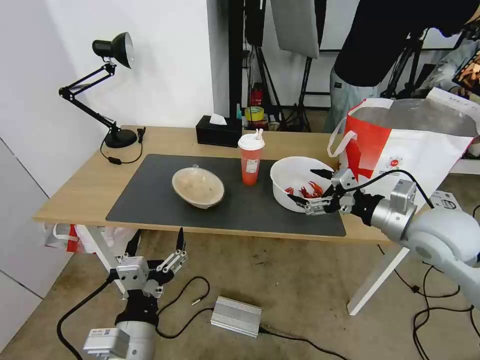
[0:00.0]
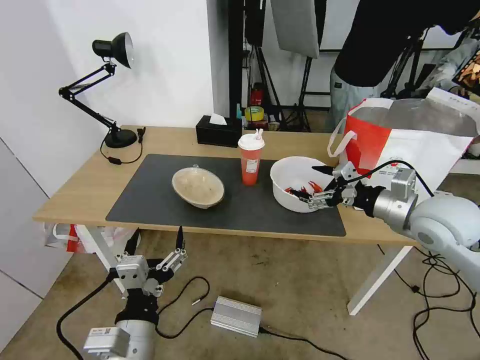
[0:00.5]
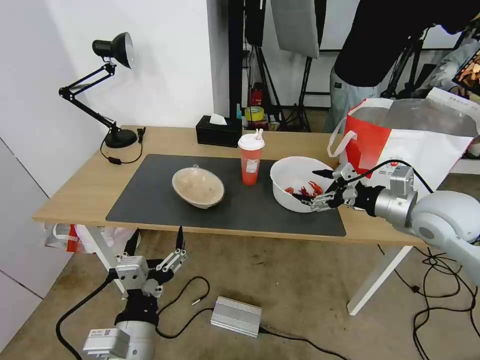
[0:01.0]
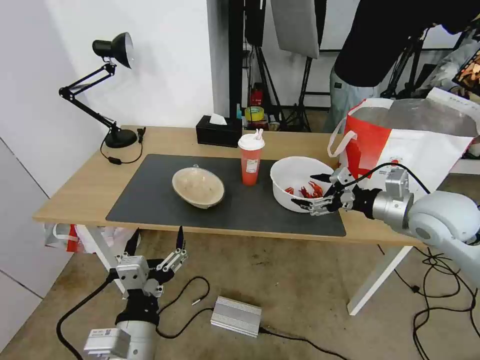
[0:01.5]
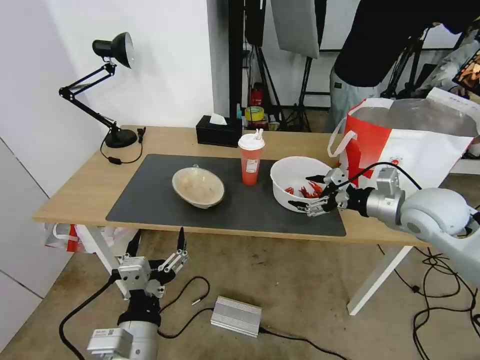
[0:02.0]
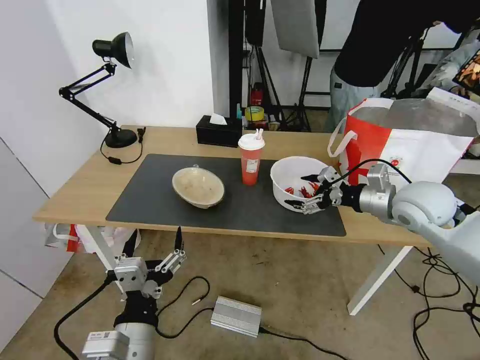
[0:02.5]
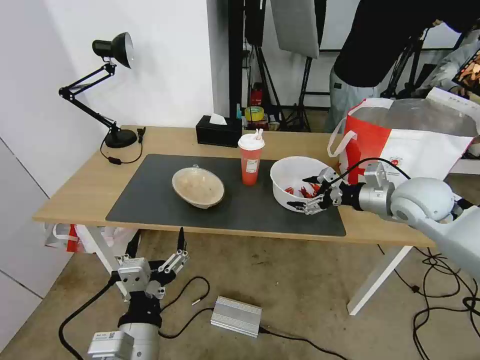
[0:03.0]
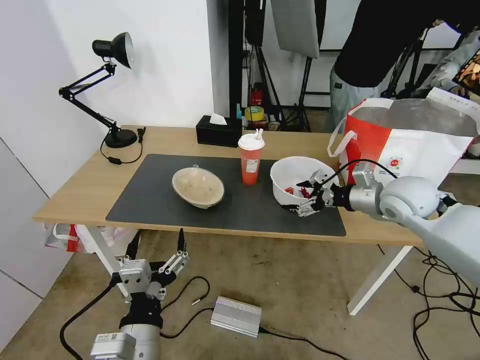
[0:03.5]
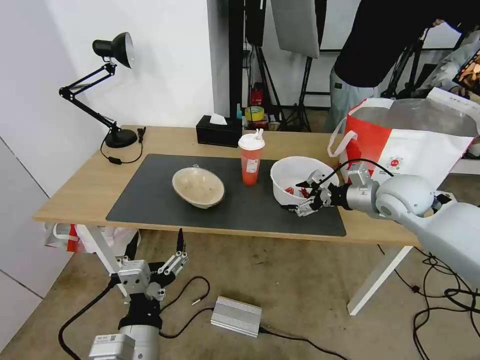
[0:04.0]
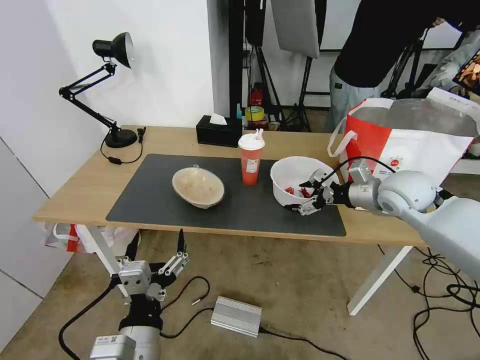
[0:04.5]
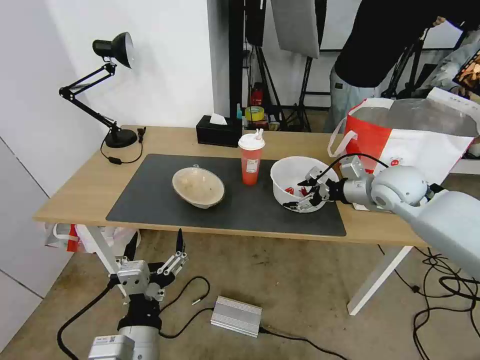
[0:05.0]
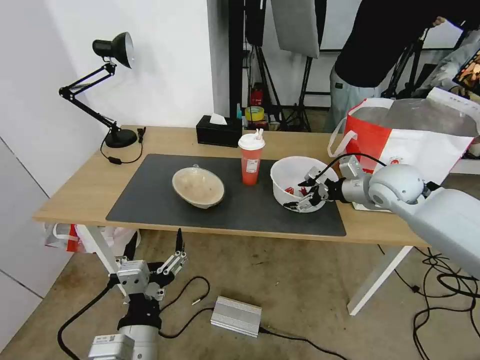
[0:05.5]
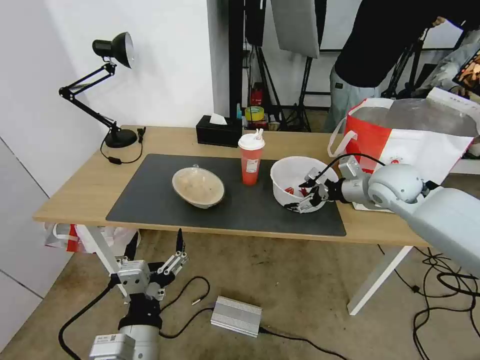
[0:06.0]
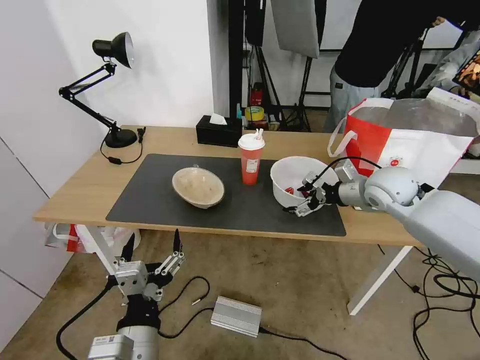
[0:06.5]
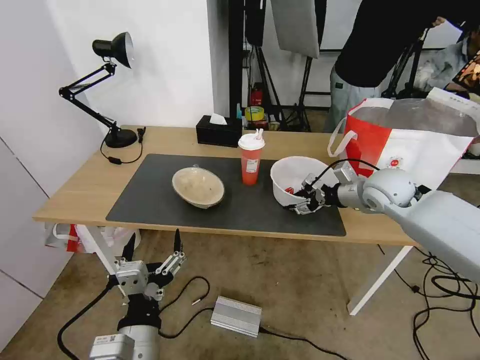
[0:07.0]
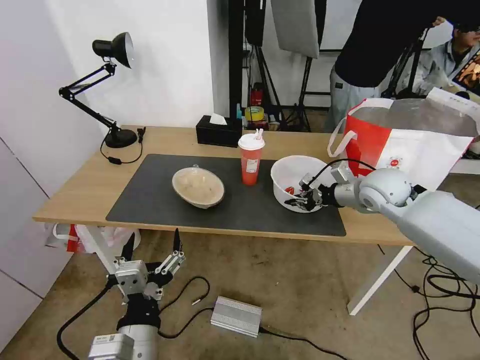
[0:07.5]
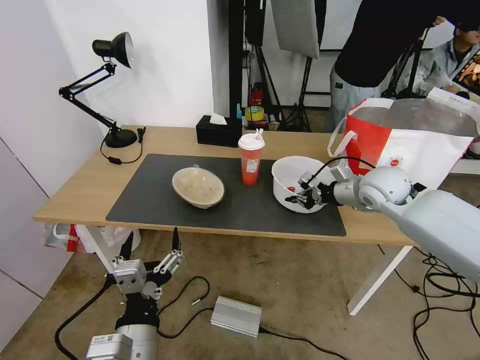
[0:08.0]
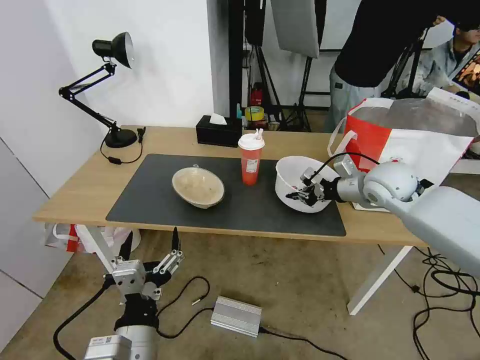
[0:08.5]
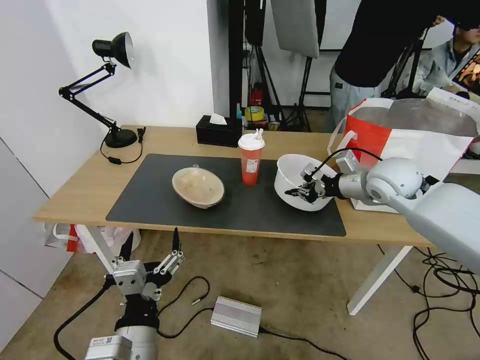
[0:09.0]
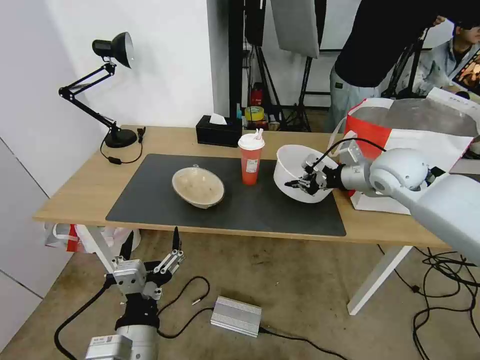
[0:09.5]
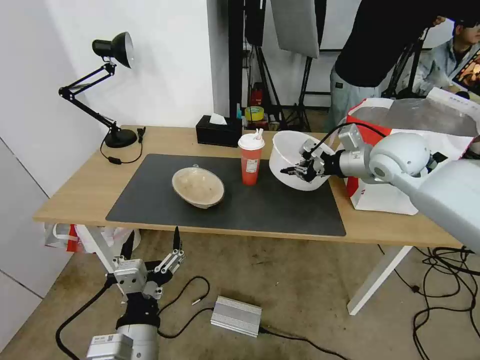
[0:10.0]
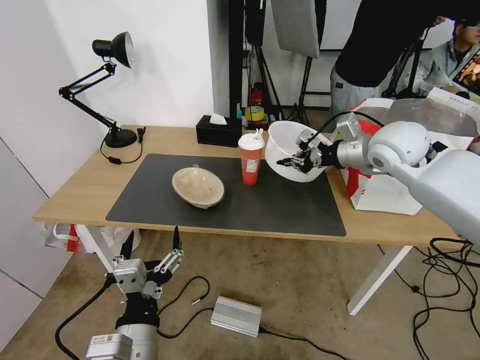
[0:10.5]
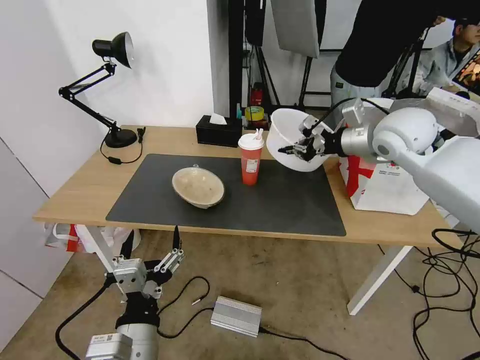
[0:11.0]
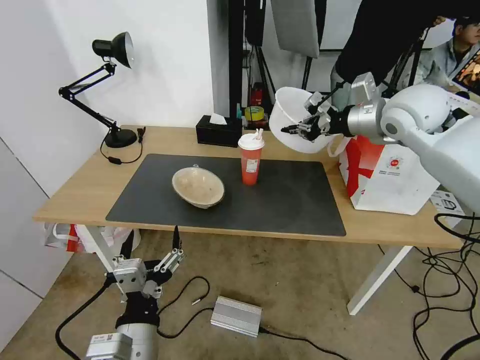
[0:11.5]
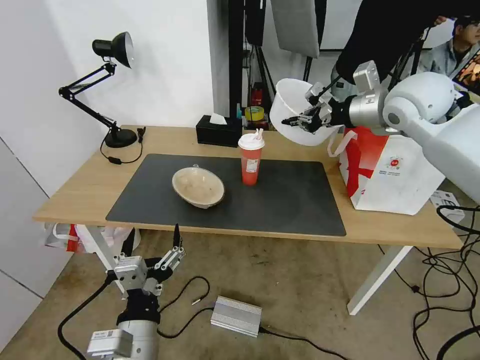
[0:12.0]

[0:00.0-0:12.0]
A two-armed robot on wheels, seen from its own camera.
Task of the whole recording: Pick up the trash from the table and place it into the takeout bag.
0.0 to 2.0 s: The right gripper changes place by roughly 5 cm.
2.0 to 4.0 s: The right gripper shifts some 5 cm forward.
4.0 to 6.0 s: The grippers stay close to where they were, moving slightly.
6.0 to 8.0 s: The right gripper closes.
8.0 to 10.0 s: The right gripper heads upward, covering approximately 10 cm.
10.0 to 12.0 s: The right gripper shifts about 10 cm upward.

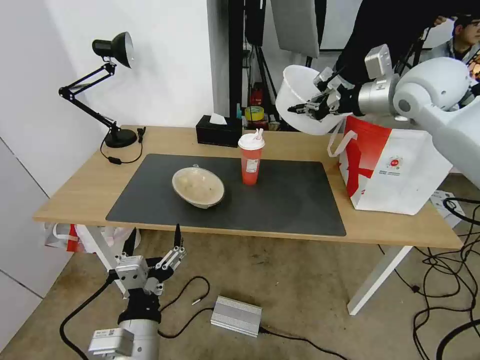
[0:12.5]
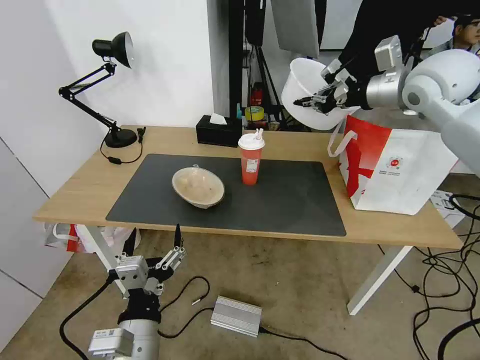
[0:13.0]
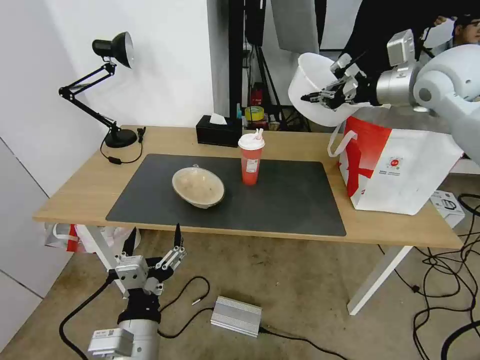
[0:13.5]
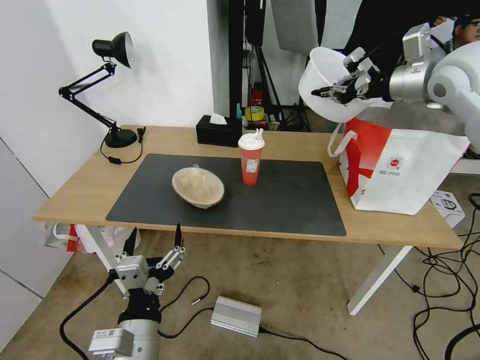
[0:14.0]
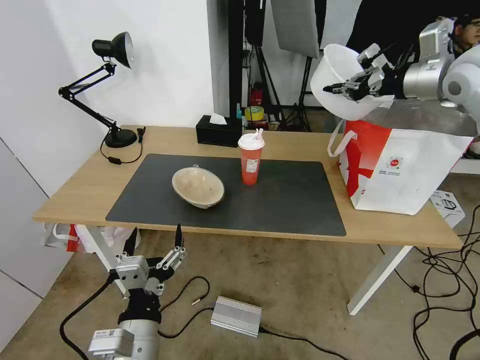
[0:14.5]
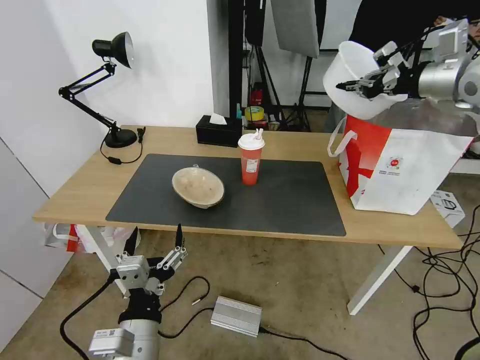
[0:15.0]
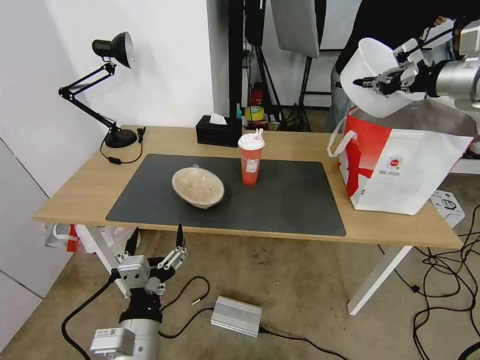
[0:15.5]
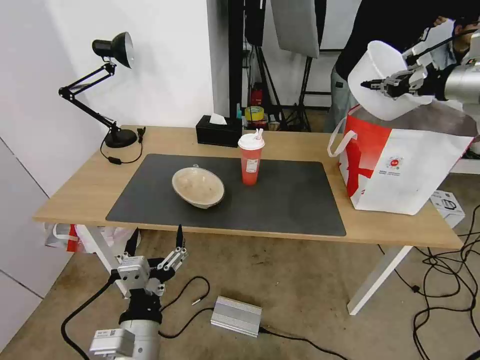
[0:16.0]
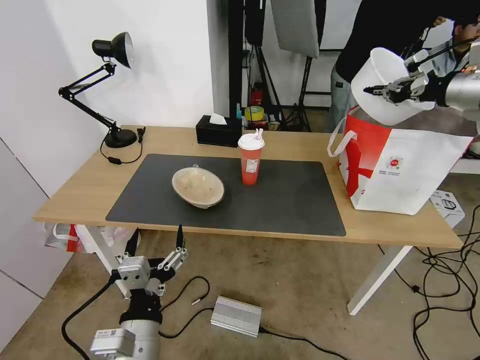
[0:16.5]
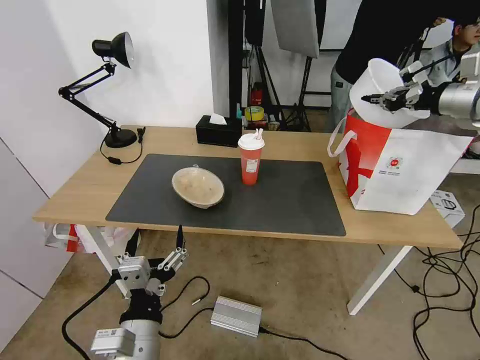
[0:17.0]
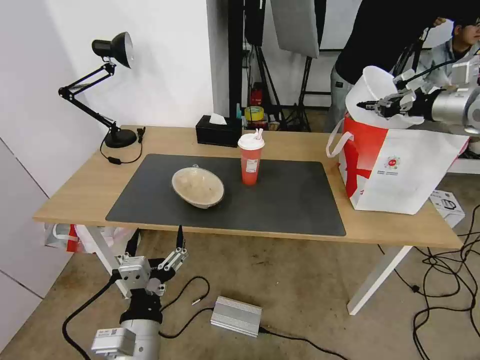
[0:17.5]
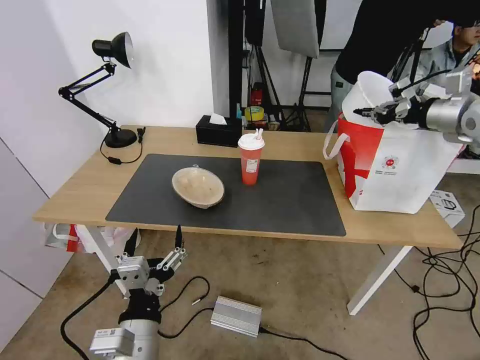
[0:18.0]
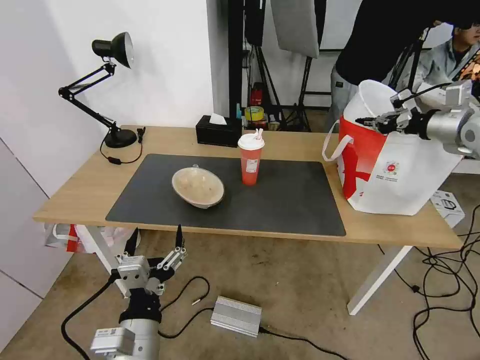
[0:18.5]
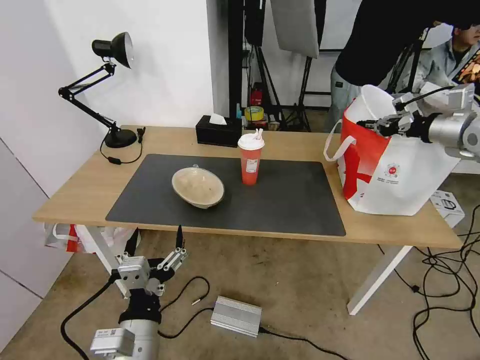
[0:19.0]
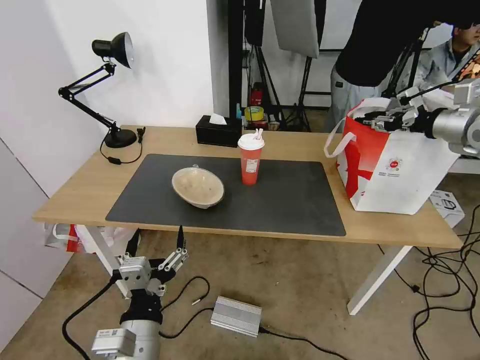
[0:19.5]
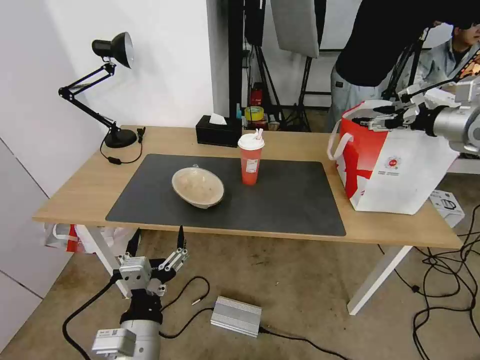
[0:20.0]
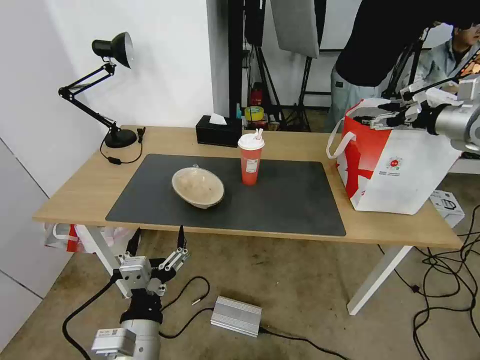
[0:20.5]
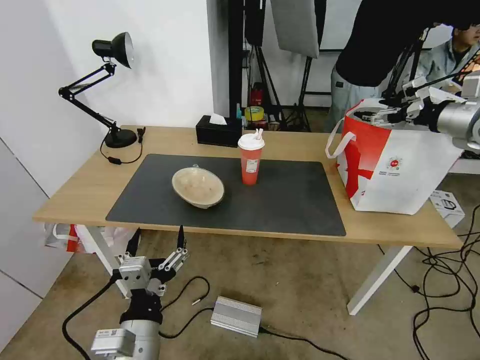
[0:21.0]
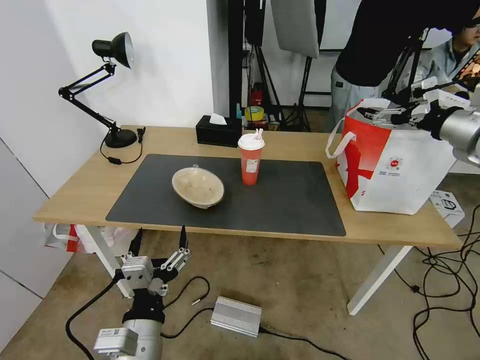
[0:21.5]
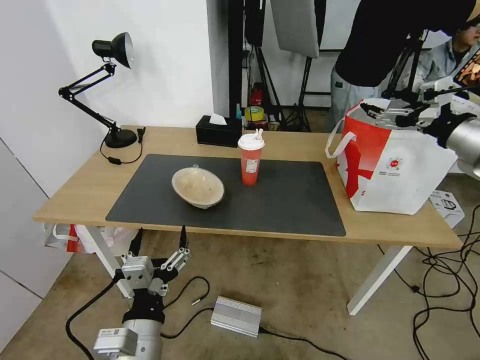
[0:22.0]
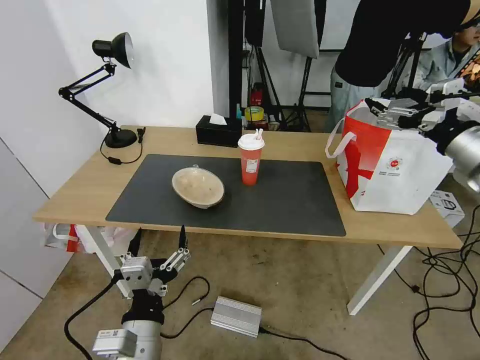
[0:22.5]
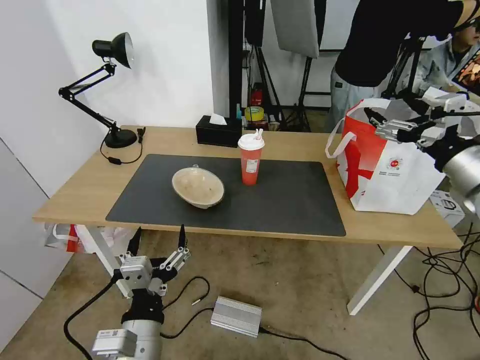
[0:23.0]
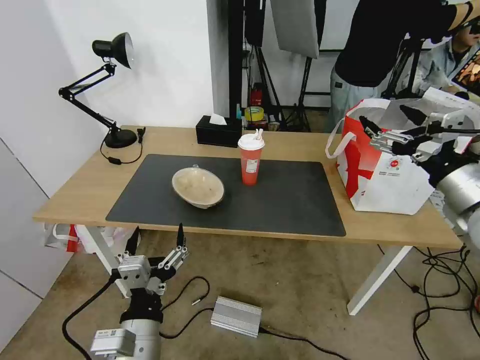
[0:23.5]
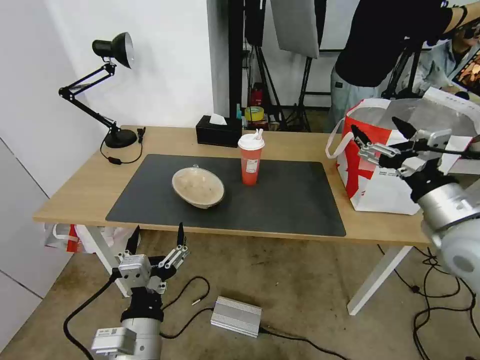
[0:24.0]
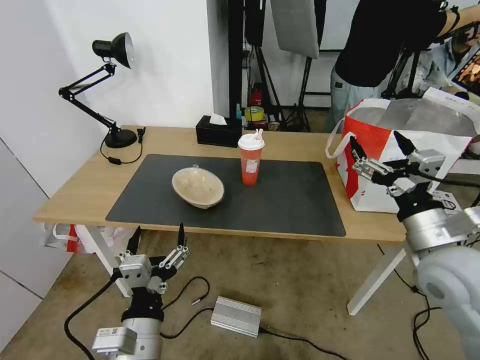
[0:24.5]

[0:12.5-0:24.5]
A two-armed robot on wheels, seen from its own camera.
Task of the whole recording: Pick up the trash from the table and place it into the takeout bag.
12.5 to 14.5 s: The right gripper heads to the right, covering some 5 cm.
14.5 to 16.5 s: The right gripper is displaced to the right by some 10 cm.
16.5 to 18.5 s: The right gripper shifts approximately 5 cm downward.
18.5 to 20.5 s: The right gripper opens.
20.5 to 22.5 s: The right gripper moves backward and to the left, approximately 15 cm.
22.5 to 24.5 s: The right gripper goes roughly 15 cm downward, backward and to the left.

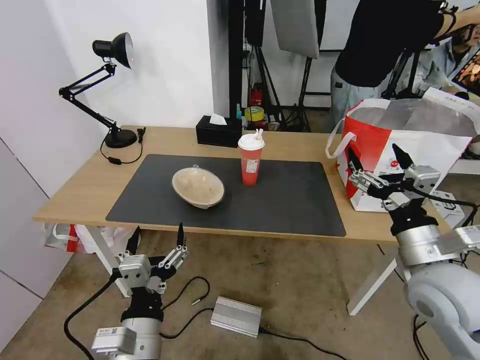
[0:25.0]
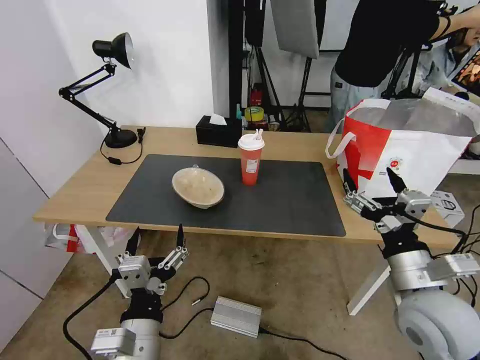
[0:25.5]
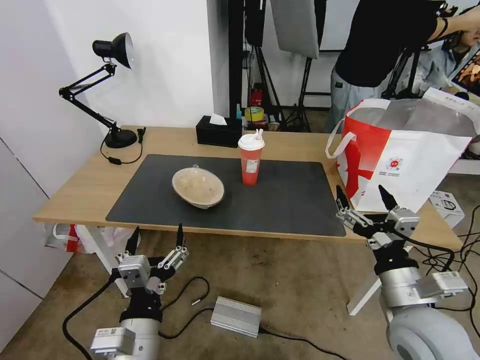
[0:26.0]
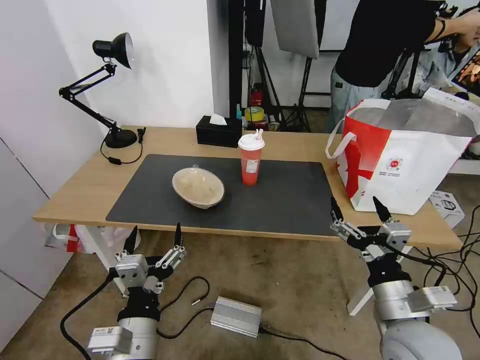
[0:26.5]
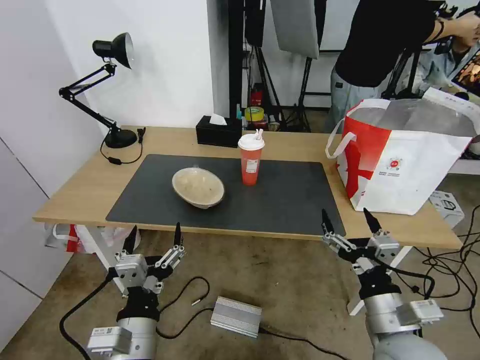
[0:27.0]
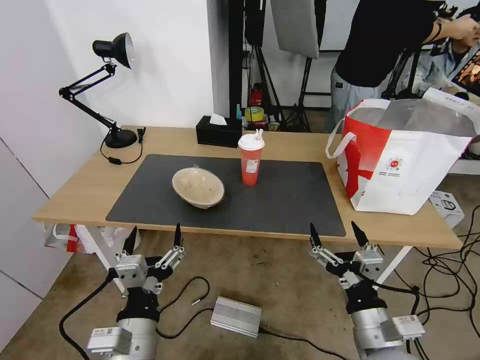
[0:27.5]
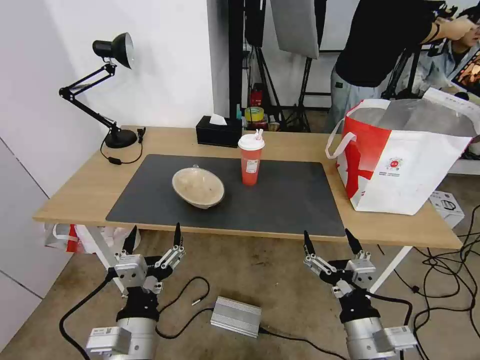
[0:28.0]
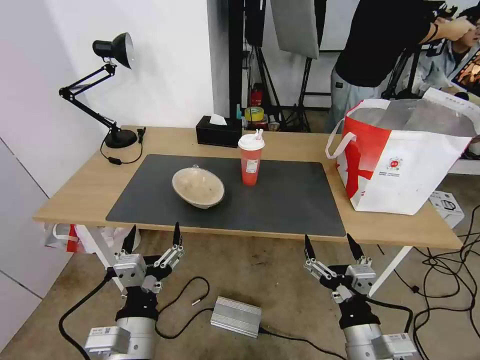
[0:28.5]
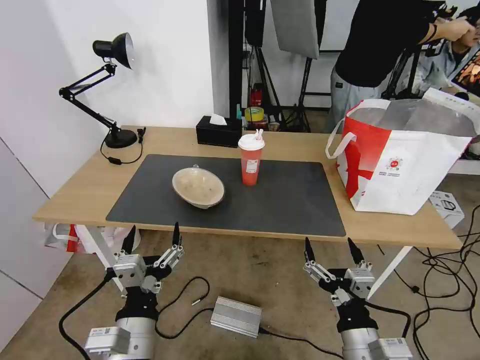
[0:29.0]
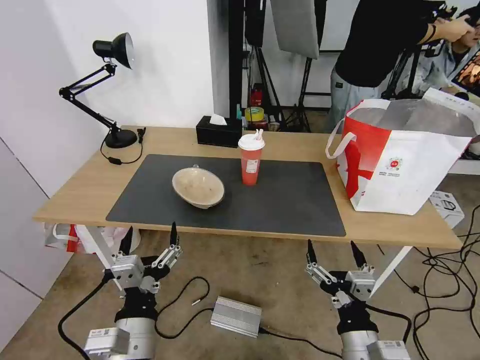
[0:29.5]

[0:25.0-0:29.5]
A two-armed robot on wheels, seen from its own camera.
Task of the whole recording: Pick up the trash from the table and place it into the takeout bag.
25.0 to 27.0 s: The right gripper shifts about 15 cm downward, backward and to the left.
27.0 to 29.5 s: The right gripper shifts roughly 5 cm to the left and backward.
